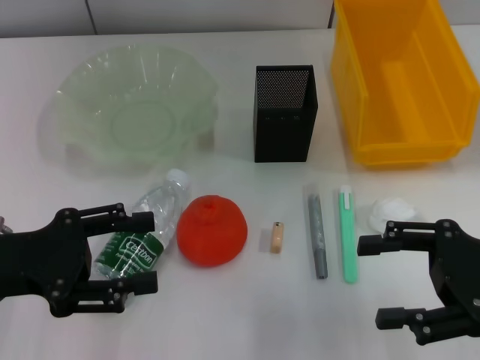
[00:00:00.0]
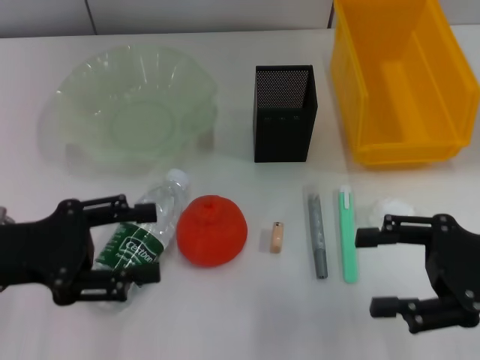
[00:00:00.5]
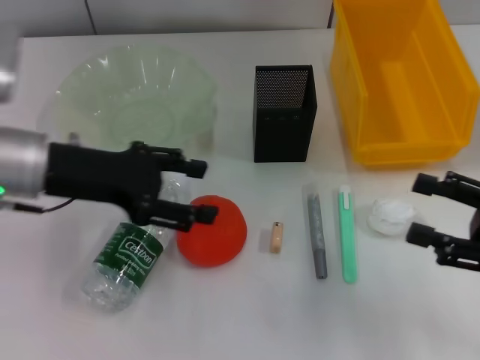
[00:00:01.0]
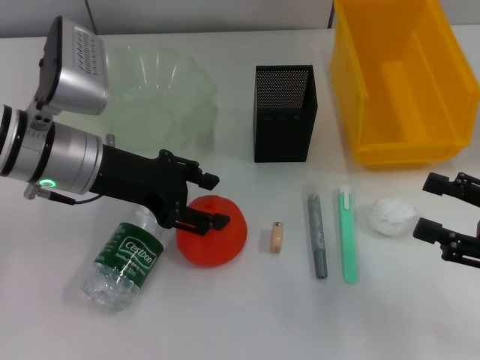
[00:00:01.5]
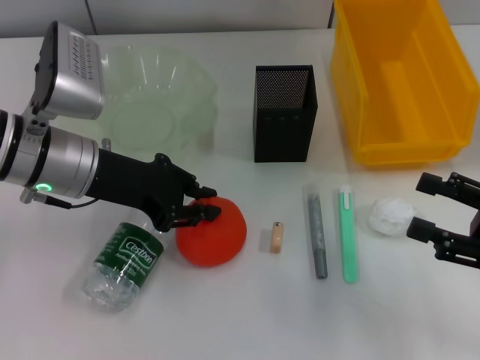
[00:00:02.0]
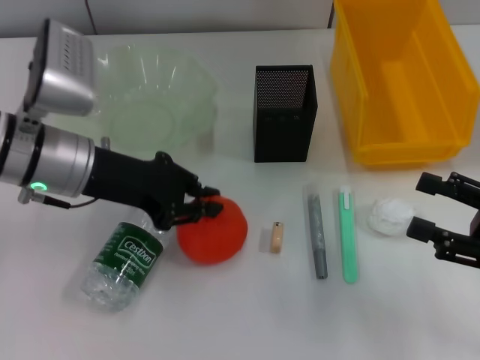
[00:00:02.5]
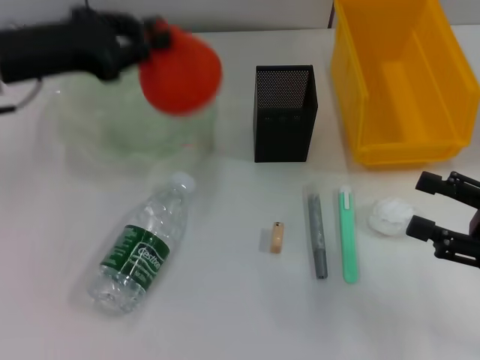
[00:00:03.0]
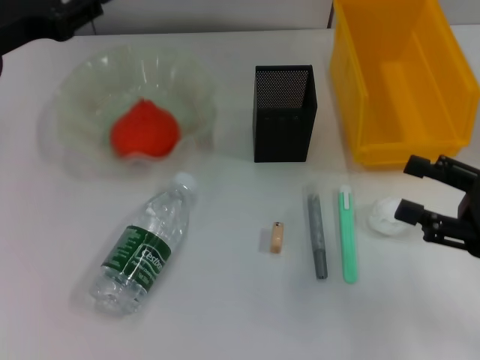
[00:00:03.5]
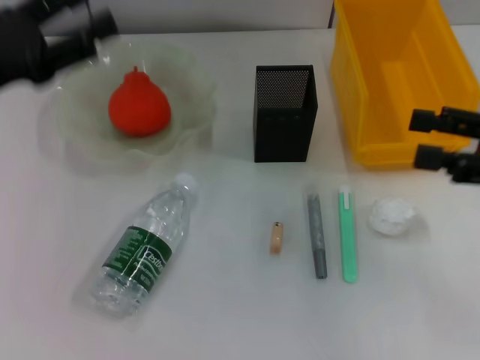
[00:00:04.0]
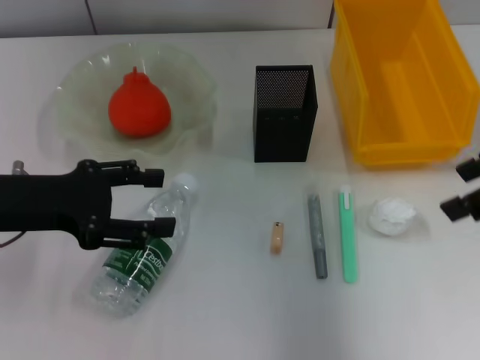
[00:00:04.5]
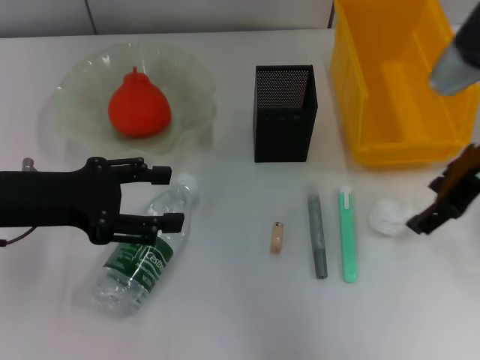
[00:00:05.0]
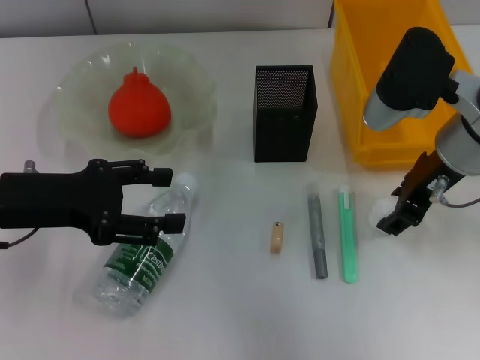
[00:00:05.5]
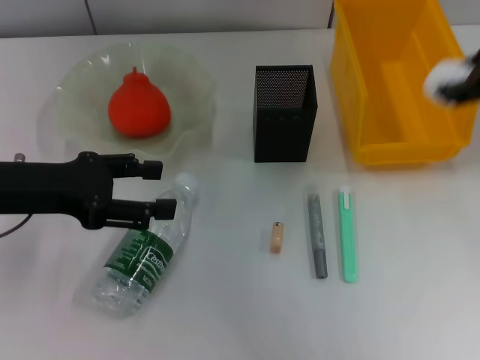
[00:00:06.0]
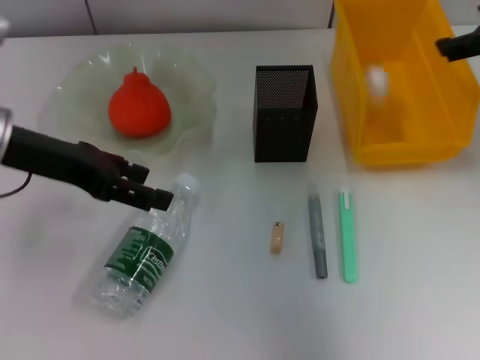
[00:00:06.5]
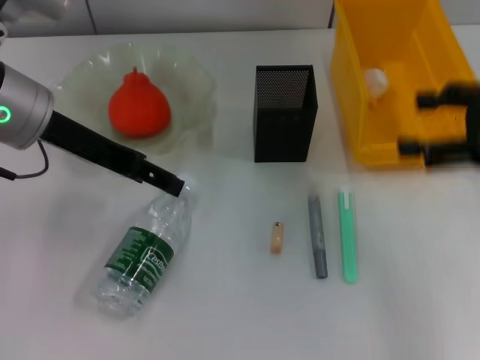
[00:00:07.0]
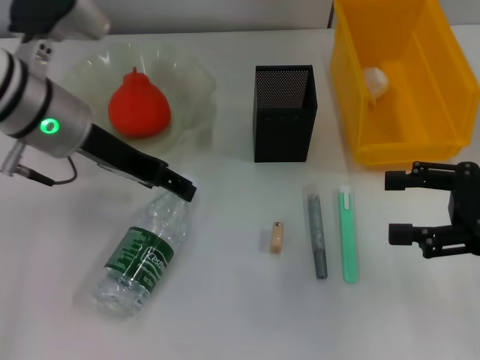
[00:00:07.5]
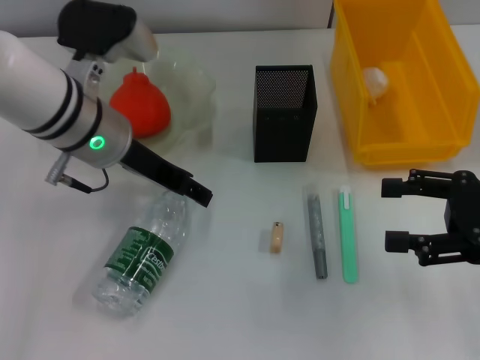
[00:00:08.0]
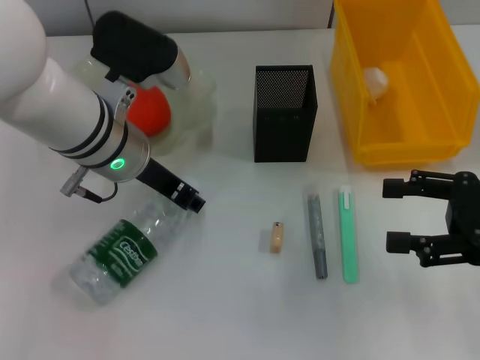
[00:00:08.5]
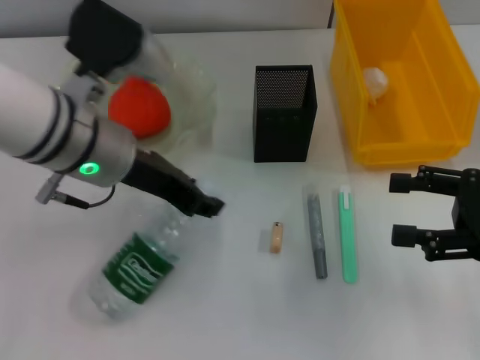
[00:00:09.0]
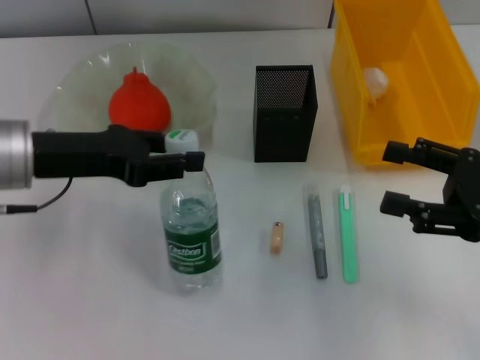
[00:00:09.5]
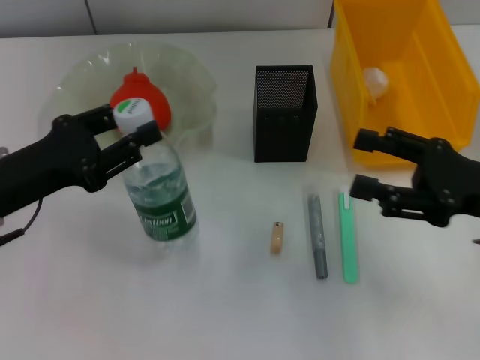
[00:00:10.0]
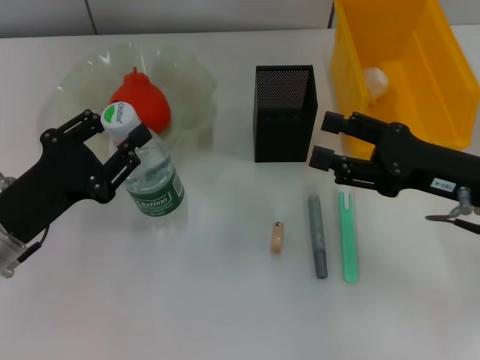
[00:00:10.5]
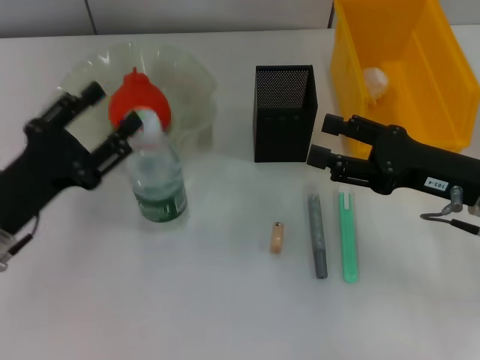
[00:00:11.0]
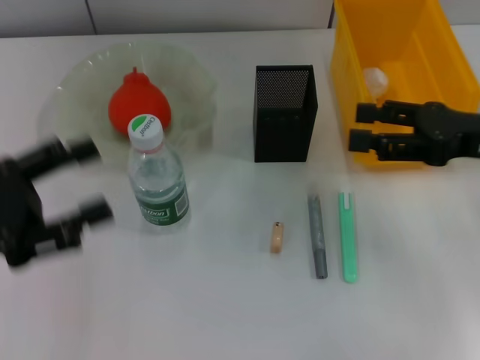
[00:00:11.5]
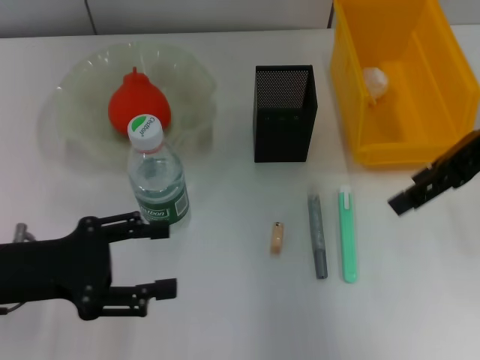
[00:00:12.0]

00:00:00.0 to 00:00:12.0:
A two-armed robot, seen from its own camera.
Step, 00:00:00.0 to 00:00:02.0: Grab the orange with the left hand.
Step, 00:00:02.5 to 00:00:03.0: Place the orange into the fruit bowl with the left hand.
Step, 00:00:03.5 to 00:00:05.0: Grab the paper ball with the right hand.
Step, 00:00:05.5 to 00:00:06.5: Place the paper ball into the trash can with the right hand.
Step, 00:00:07.0 to 00:00:08.0: Grab the water bottle with the left hand.
Step, 00:00:08.5 to 00:00:10.5: Place the water bottle on the table with the left hand.
00:00:00.0 to 00:00:02.0: The left gripper travels forward and to the right by some 15 cm, and closes up; the right gripper shifts by roughly 5 cm.
00:00:02.0 to 00:00:04.0: The left gripper shifts some 10 cm to the left, and opens up. Meanwhile the right gripper heads upward and forward, covering about 10 cm.
00:00:04.0 to 00:00:06.0: The right gripper travels upward, to the left and forward by approximately 15 cm, and closes its fingers.
00:00:06.0 to 00:00:08.0: The left gripper goes approximately 15 cm to the right and forward; the right gripper goes approximately 20 cm downward, to the right and backward, and opens its fingers.
00:00:08.0 to 00:00:10.0: The left gripper shifts some 15 cm to the left and backward, and closes its fingers.
00:00:10.0 to 00:00:12.0: The left gripper opens, while the right gripper shifts about 15 cm upward and forward.

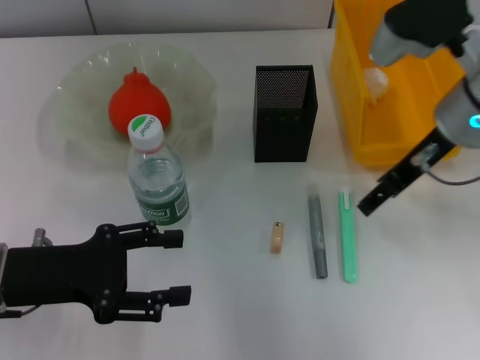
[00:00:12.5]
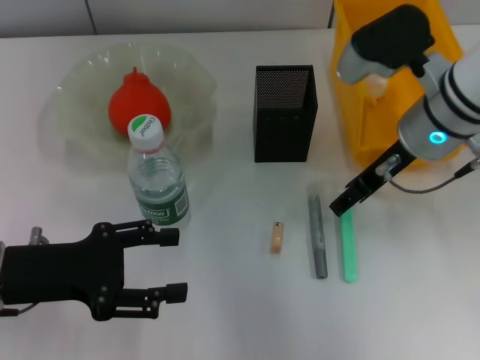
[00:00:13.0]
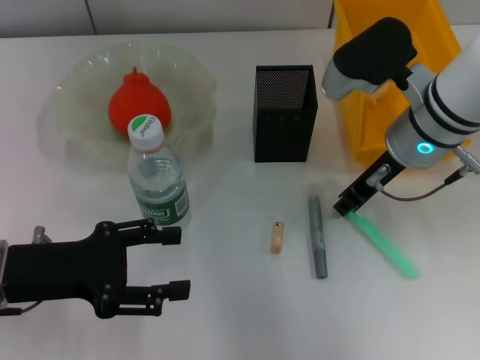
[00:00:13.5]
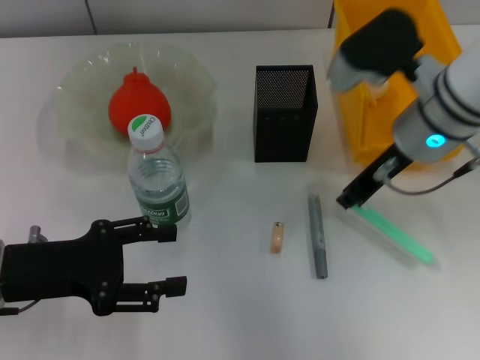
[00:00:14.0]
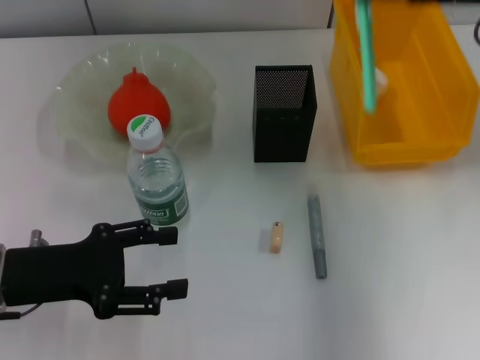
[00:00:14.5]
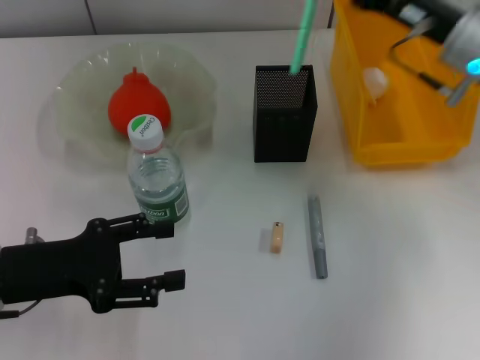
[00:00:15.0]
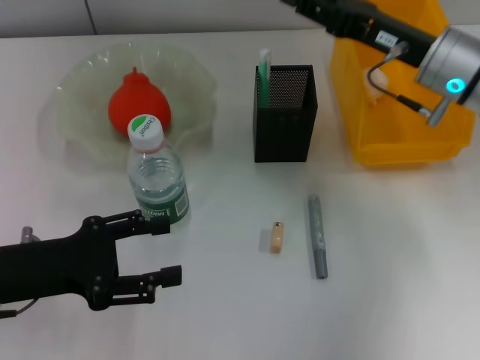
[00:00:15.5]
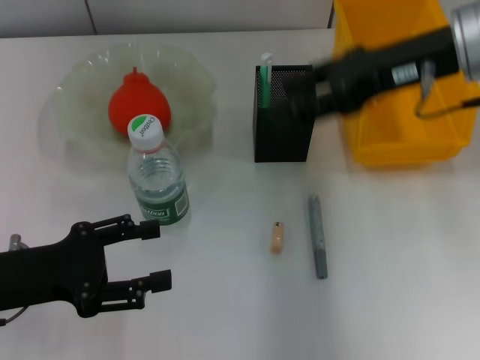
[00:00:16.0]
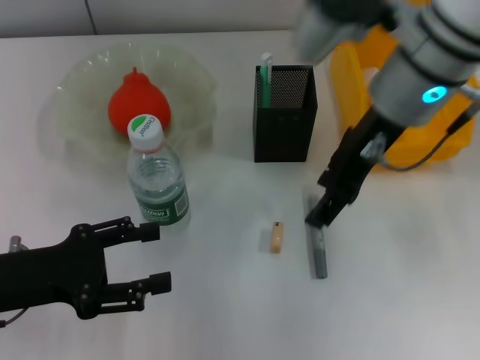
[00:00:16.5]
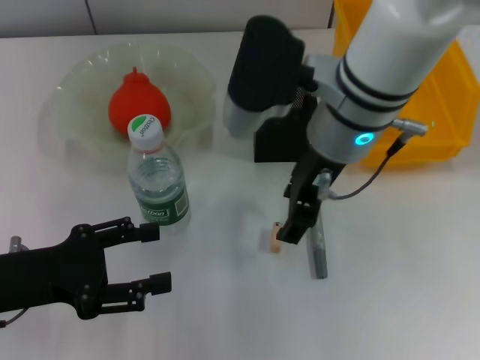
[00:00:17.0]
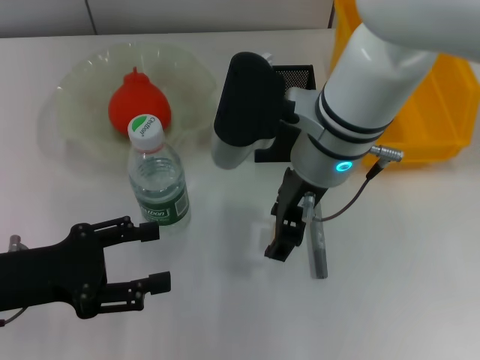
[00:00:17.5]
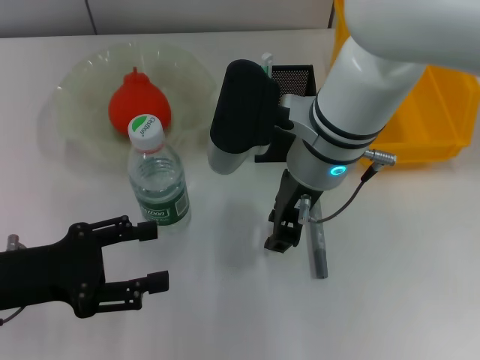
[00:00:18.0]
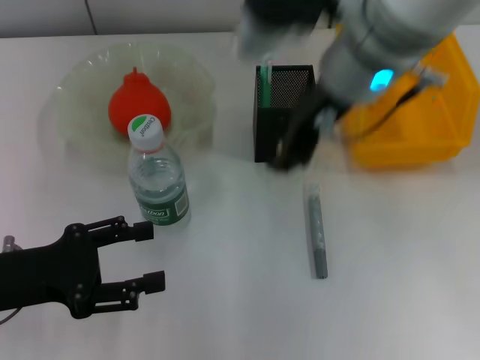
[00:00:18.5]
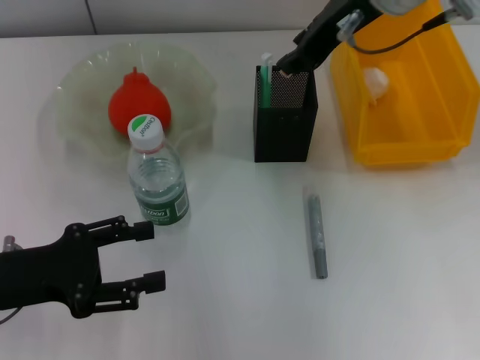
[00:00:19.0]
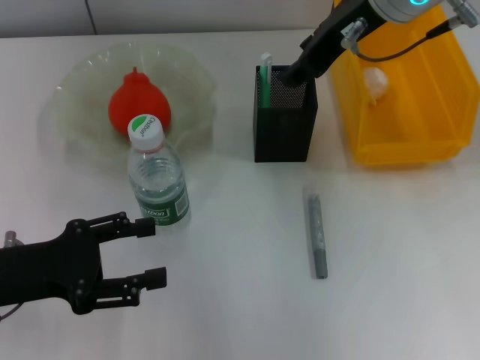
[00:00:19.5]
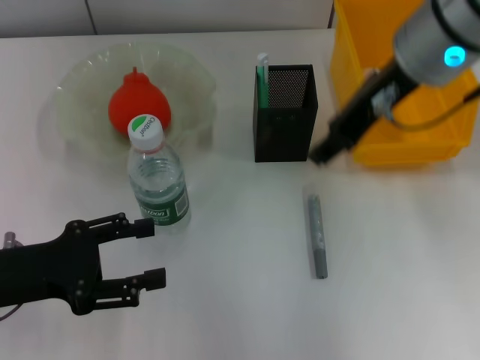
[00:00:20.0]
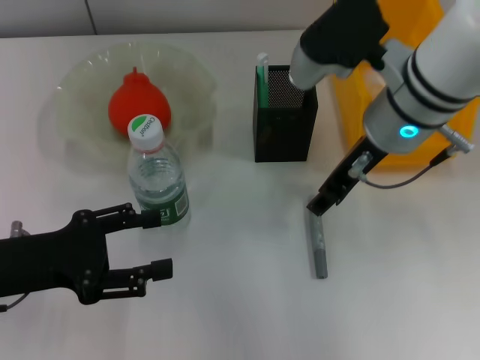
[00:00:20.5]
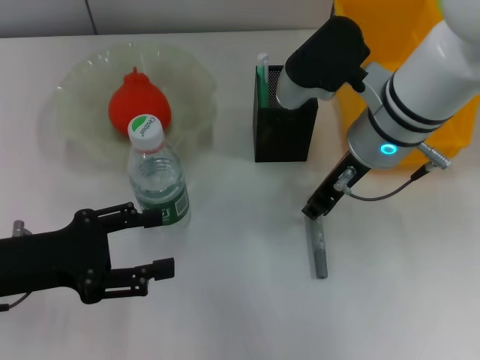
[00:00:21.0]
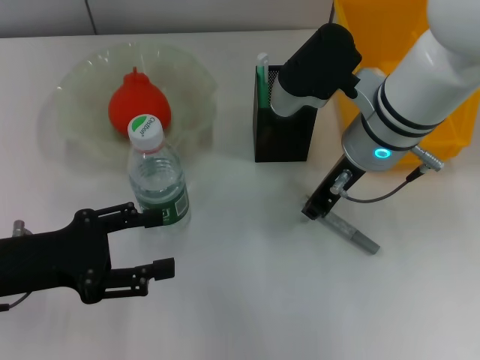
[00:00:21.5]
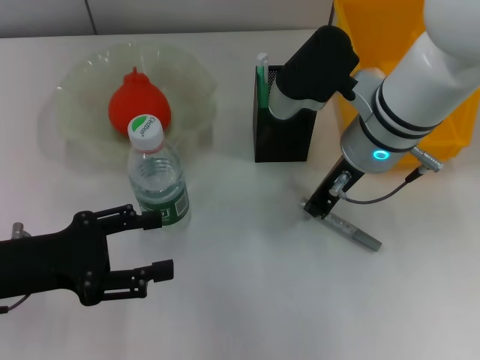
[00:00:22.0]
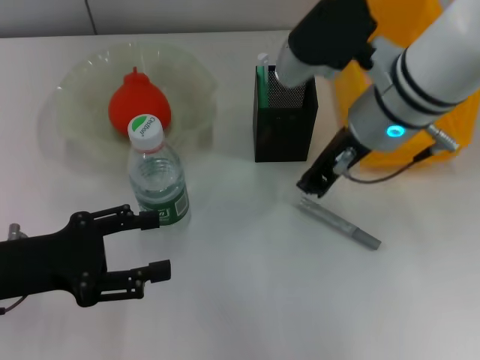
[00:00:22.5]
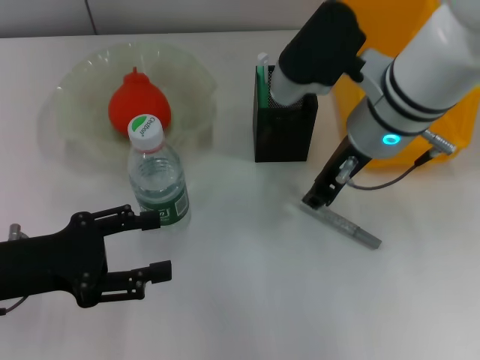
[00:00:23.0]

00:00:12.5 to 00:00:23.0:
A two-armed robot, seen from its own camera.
Step, 00:00:14.0 to 00:00:15.0: Place the blue utility knife into the pen holder with the right hand.
Step, 00:00:15.5 to 00:00:17.5: Grab the eraser with the right hand.
Step, 00:00:18.0 to 00:00:19.5: Put the eraser into the pen holder with the right hand.
00:00:12.5 to 00:00:14.5: The right gripper goes about 10 cm to the right and upward, and closes.
00:00:14.5 to 00:00:16.5: The right gripper heads to the left, covering approximately 15 cm, and opens.
00:00:16.5 to 00:00:19.0: The right gripper shifts approximately 5 cm upward, and closes up.
00:00:19.0 to 00:00:21.0: The right gripper heads downward, covering approximately 10 cm.
00:00:21.0 to 00:00:23.0: The right gripper closes.

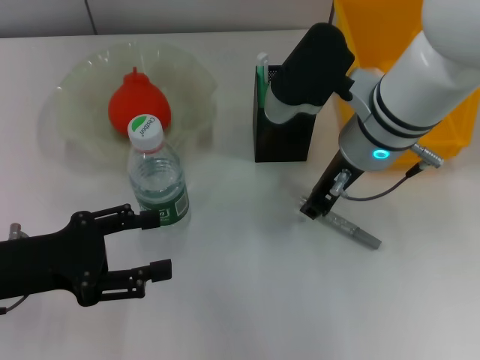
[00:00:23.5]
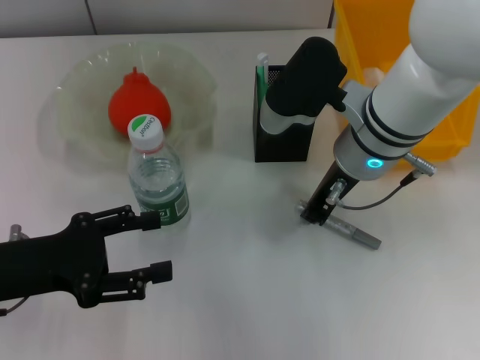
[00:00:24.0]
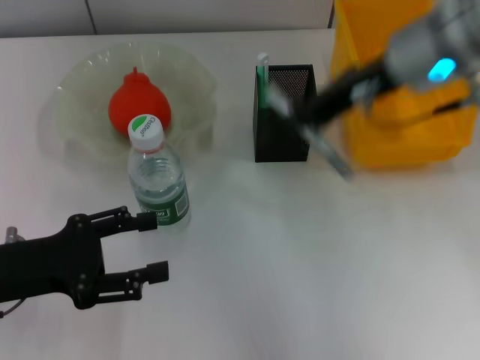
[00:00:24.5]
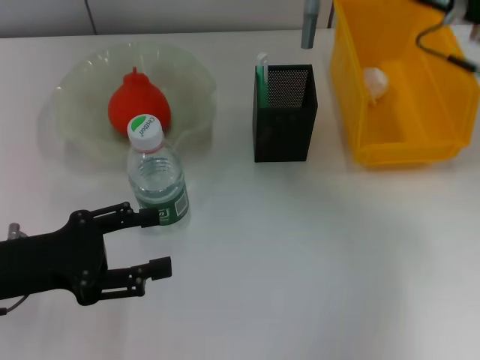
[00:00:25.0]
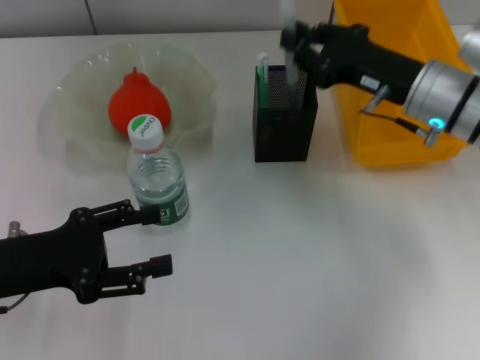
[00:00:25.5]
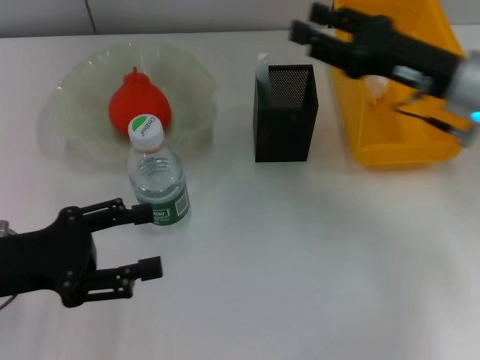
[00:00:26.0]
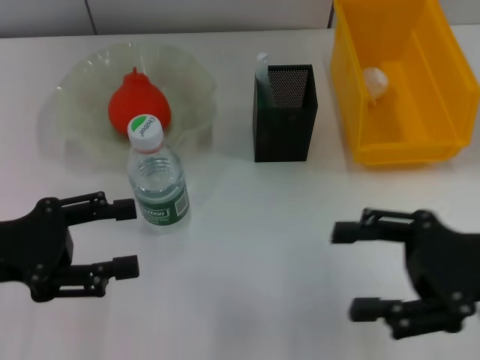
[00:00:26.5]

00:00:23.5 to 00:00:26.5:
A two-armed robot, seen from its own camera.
Step, 00:00:24.5 to 00:00:25.5: Place the gray glue into the pen holder with the right hand.
00:00:23.5 to 00:00:25.0: The right gripper travels to the right by some 10 cm.
00:00:25.0 to 00:00:26.5: The right gripper goes some 15 cm backward and downward, and opens up.
